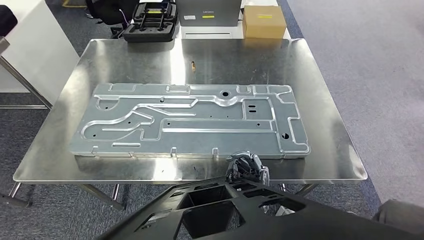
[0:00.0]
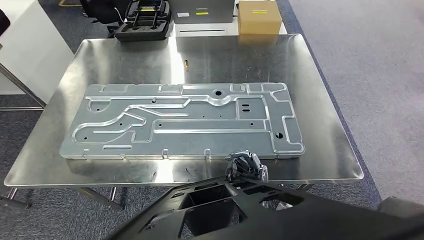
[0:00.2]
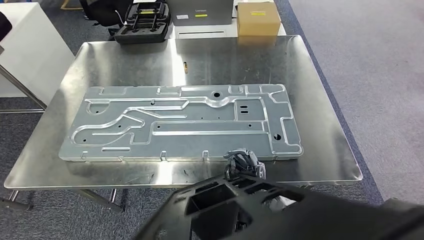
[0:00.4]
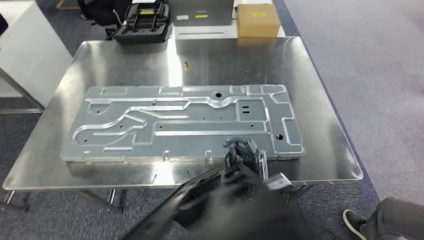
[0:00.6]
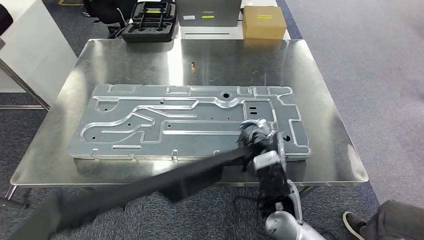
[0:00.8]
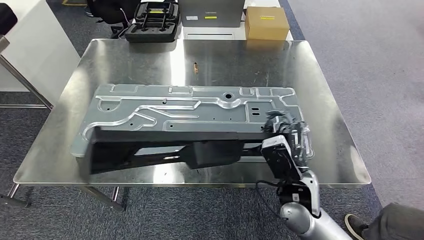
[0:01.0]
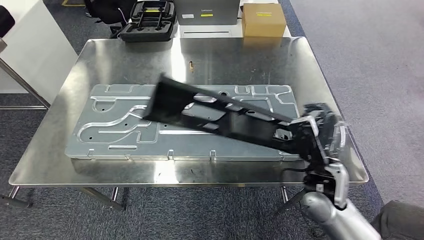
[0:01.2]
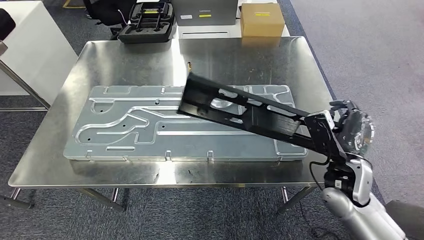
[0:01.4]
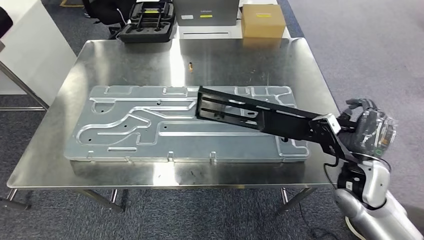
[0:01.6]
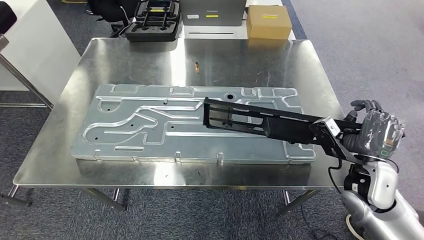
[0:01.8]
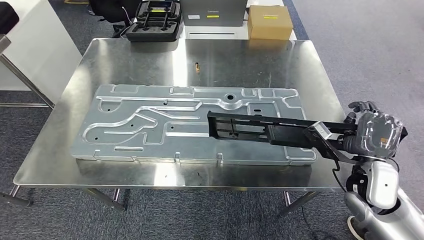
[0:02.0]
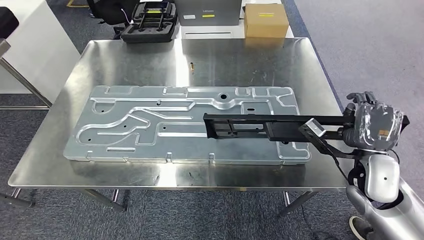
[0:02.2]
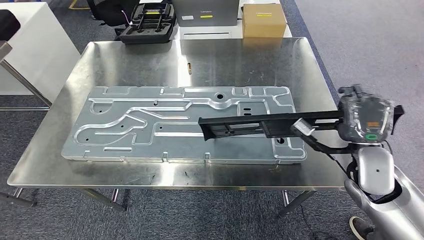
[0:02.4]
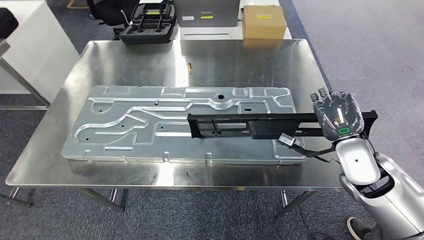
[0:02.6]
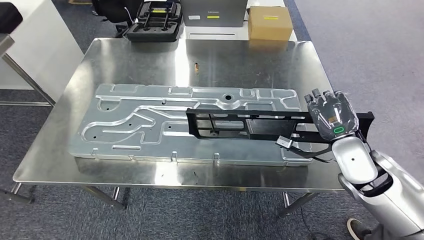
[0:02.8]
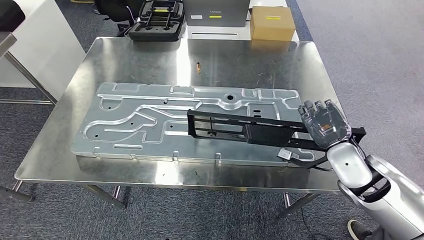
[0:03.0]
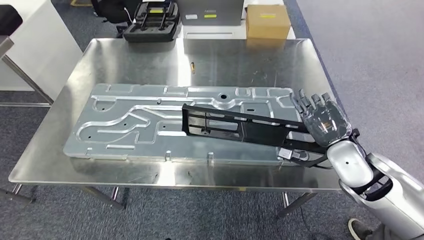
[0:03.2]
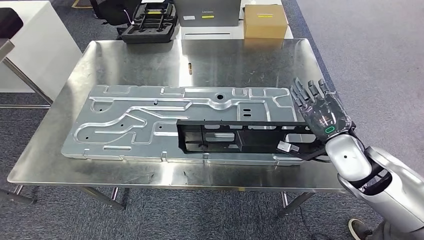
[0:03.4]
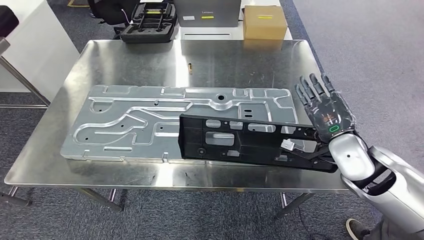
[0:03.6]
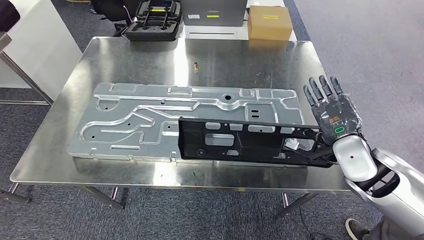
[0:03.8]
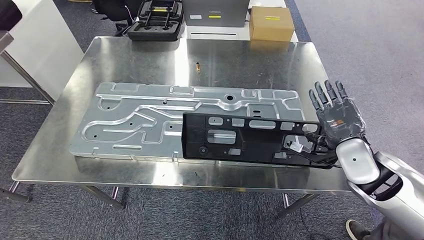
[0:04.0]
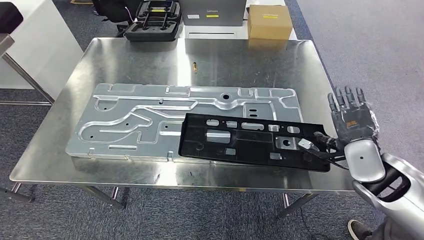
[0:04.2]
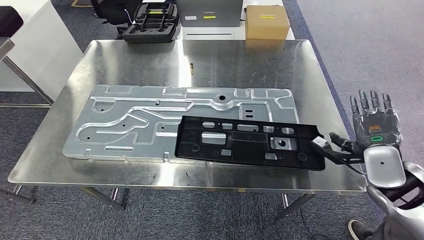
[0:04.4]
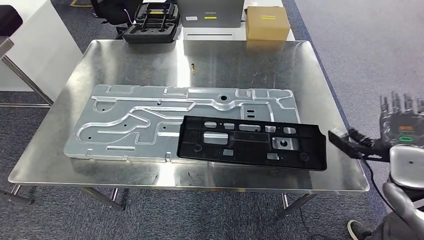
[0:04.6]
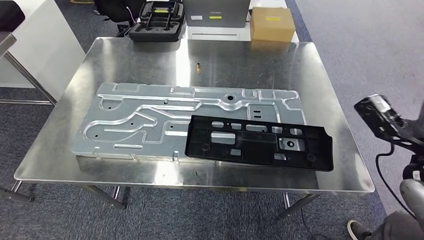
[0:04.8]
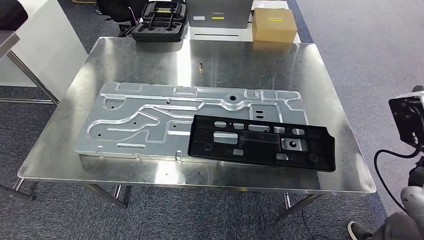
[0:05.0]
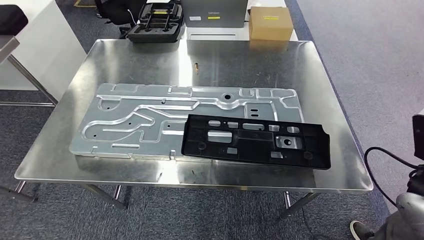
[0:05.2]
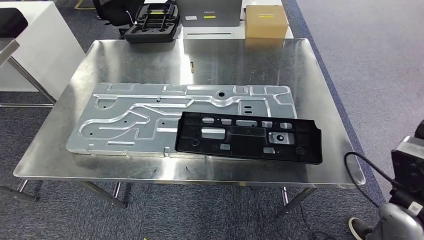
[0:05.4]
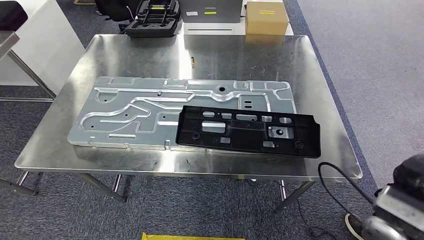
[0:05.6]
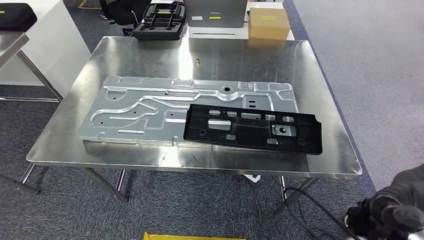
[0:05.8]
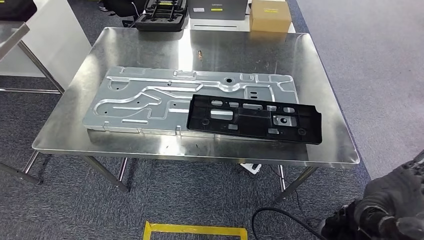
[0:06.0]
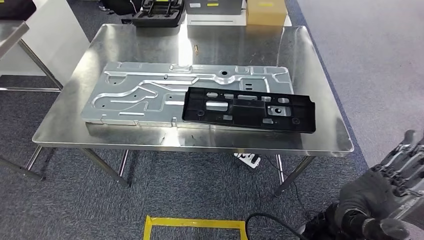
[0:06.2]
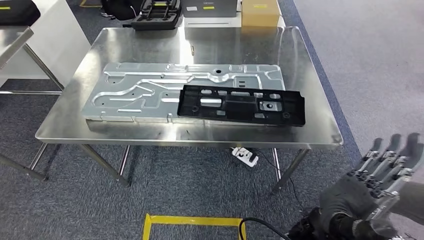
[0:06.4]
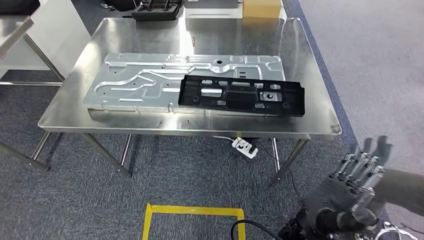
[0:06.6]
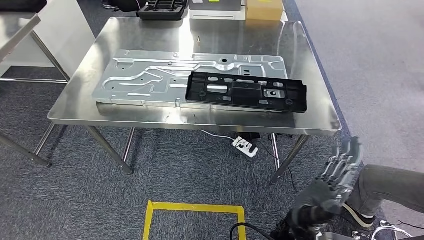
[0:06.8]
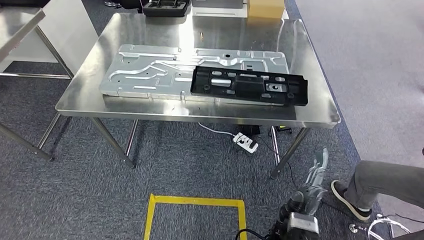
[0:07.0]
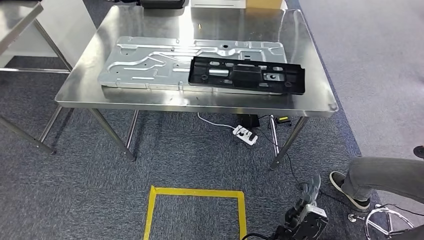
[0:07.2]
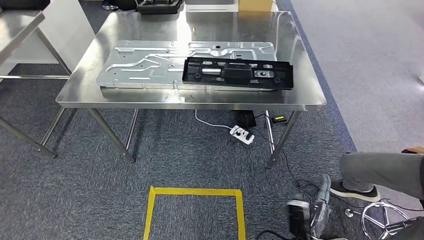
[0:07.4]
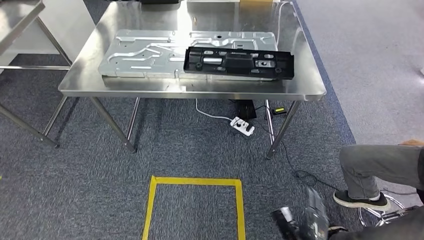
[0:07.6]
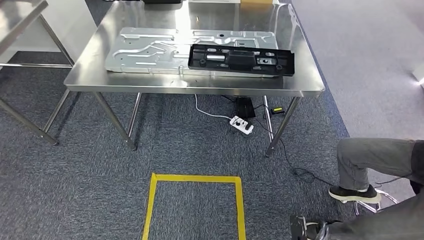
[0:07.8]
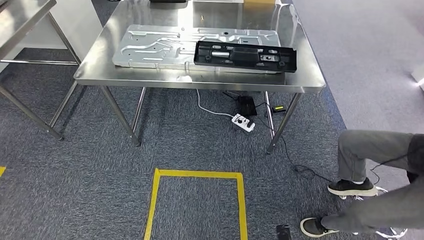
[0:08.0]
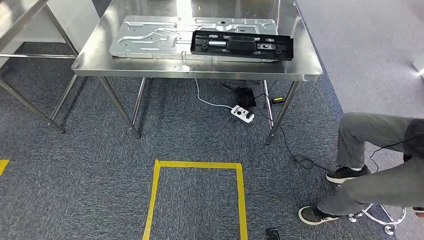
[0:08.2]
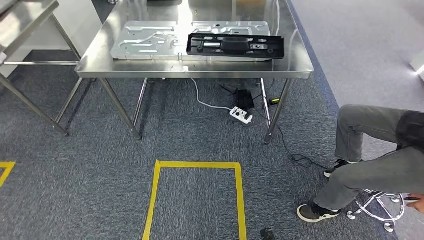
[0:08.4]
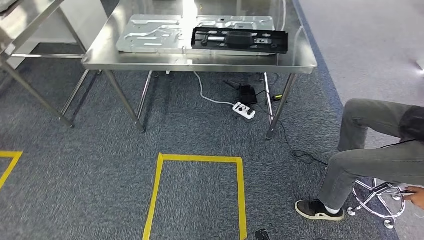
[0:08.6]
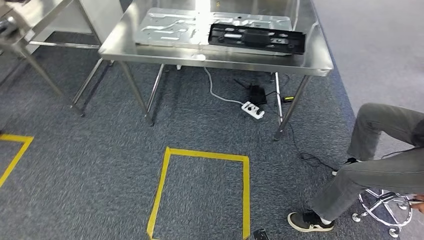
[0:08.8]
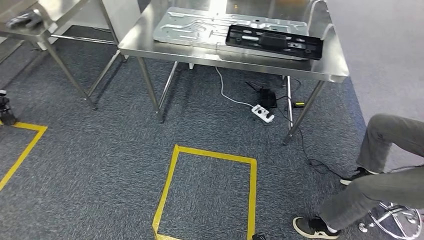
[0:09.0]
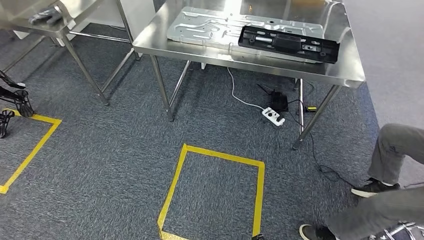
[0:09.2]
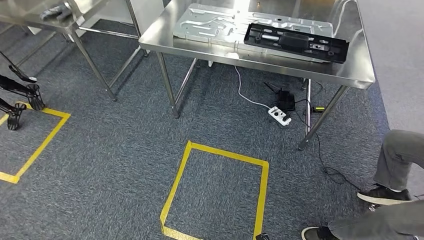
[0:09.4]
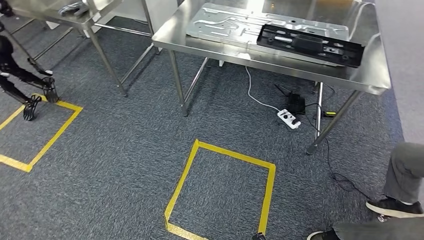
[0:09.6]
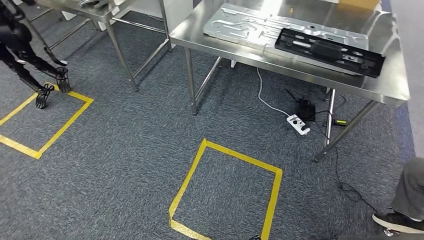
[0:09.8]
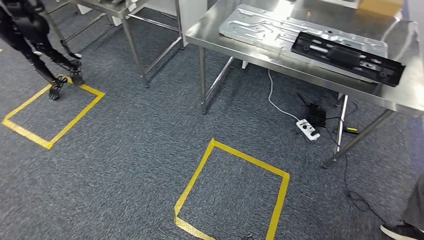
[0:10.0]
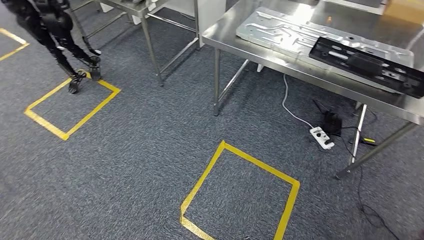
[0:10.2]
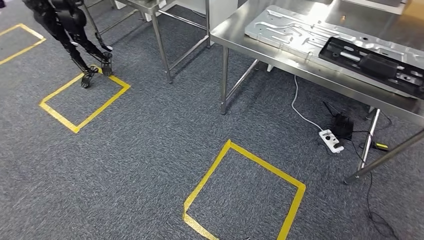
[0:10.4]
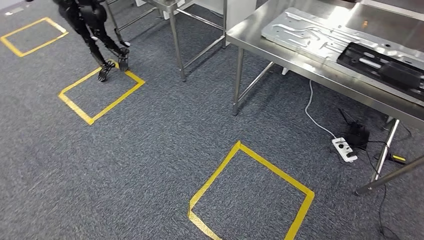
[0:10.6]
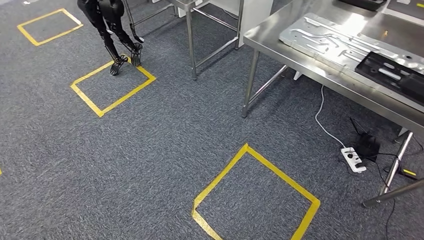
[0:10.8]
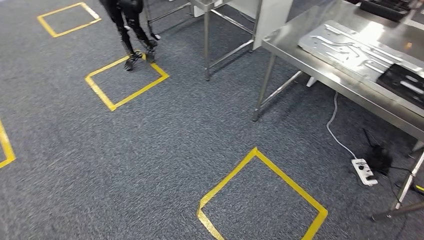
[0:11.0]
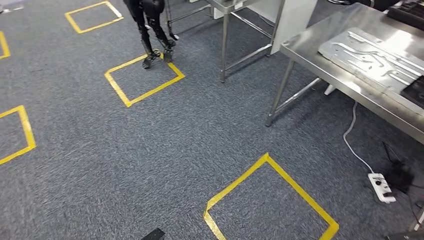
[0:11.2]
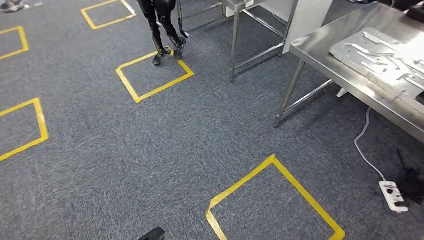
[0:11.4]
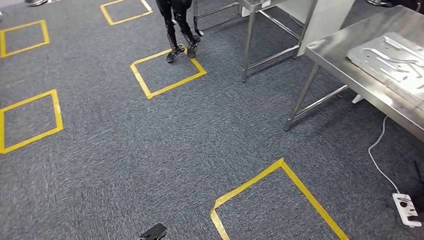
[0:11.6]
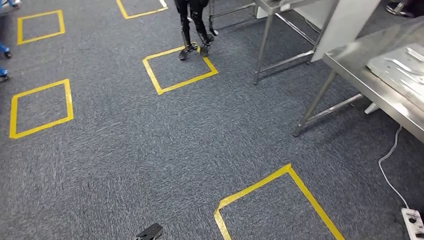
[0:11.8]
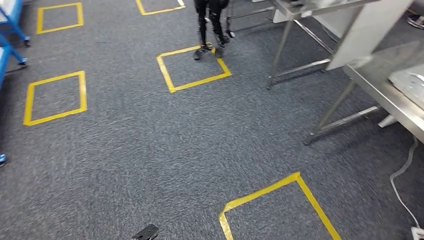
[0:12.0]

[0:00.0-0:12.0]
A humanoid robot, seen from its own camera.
Step, 0:00.0 to 0:07.2: Insert the large material into the corresponding slot on the workbench.

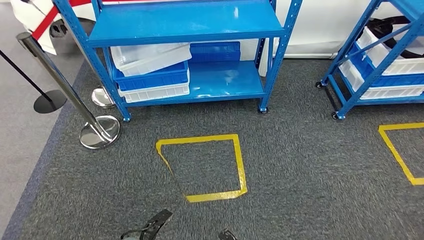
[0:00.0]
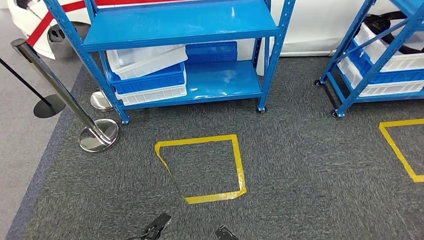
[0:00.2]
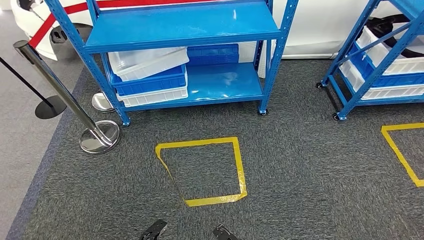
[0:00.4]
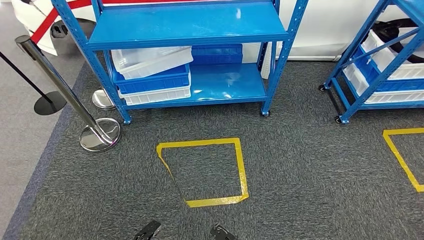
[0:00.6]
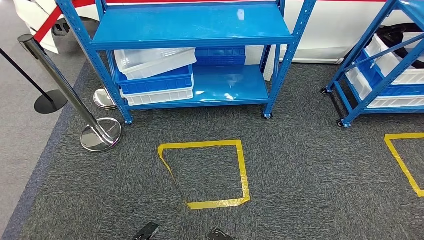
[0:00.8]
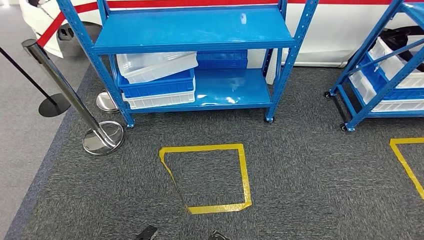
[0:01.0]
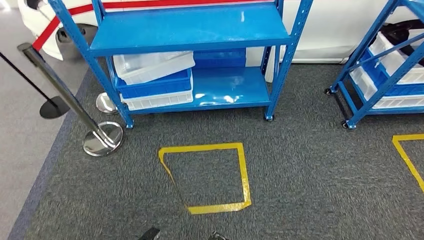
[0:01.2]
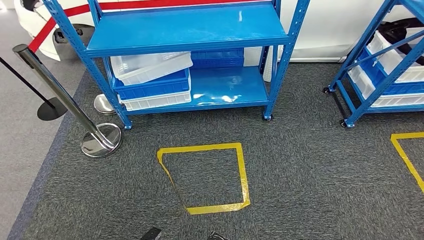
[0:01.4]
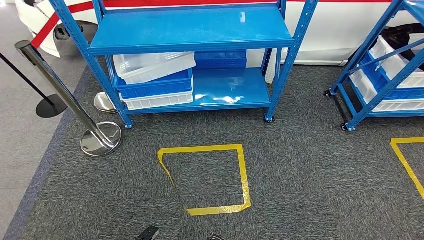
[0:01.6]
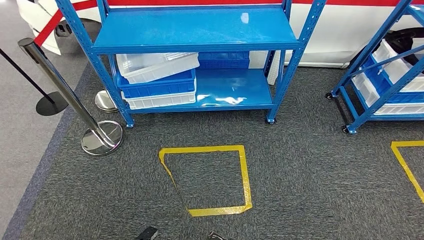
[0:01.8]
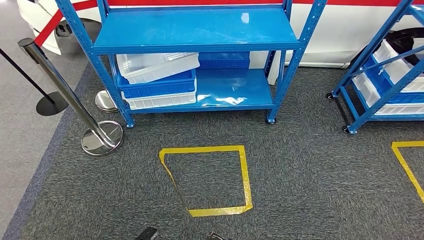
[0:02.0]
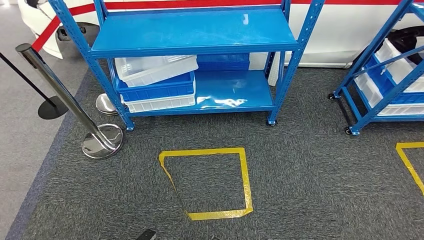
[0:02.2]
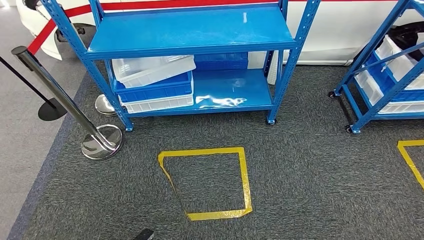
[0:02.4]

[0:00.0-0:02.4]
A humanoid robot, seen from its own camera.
Step, 0:00.0 to 0:02.4: Move to the initial position of the shelf.
